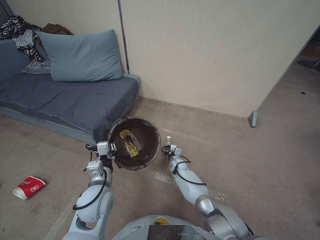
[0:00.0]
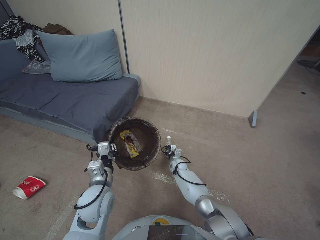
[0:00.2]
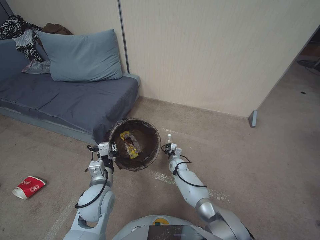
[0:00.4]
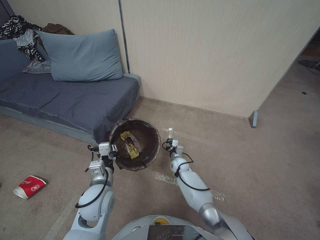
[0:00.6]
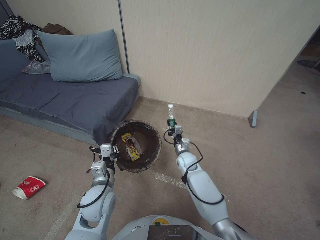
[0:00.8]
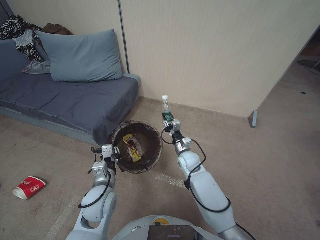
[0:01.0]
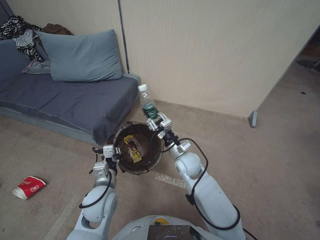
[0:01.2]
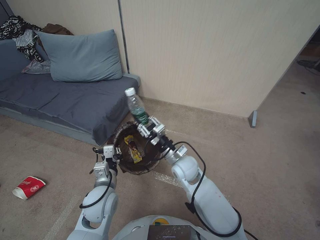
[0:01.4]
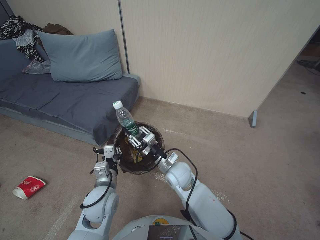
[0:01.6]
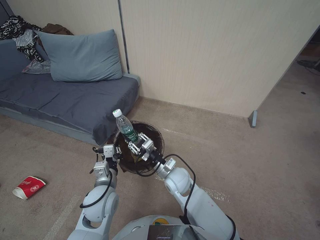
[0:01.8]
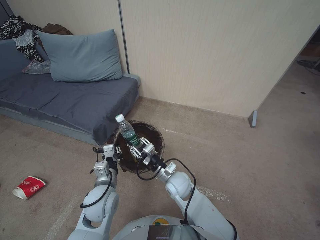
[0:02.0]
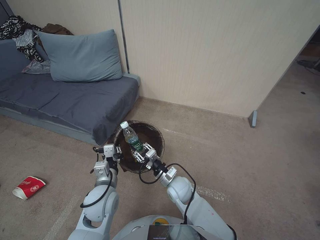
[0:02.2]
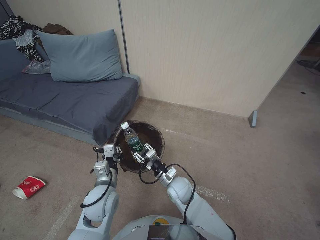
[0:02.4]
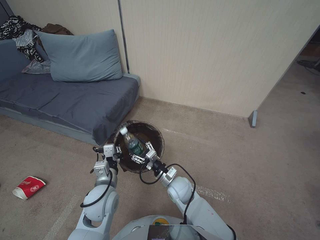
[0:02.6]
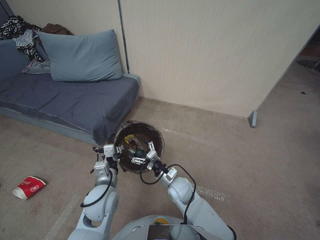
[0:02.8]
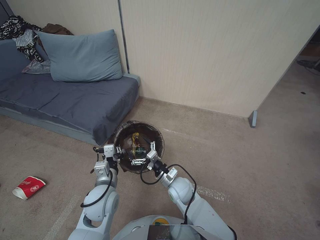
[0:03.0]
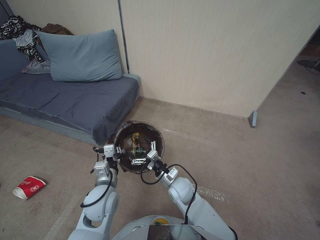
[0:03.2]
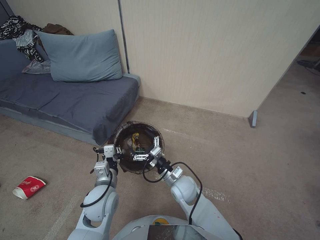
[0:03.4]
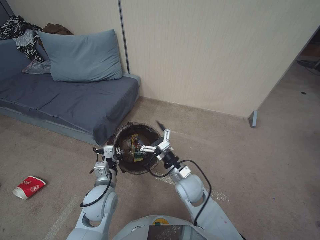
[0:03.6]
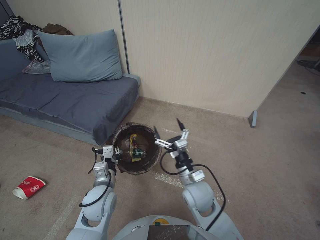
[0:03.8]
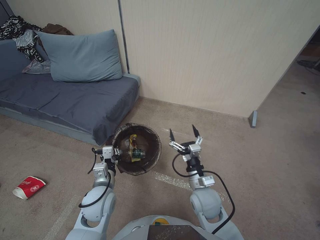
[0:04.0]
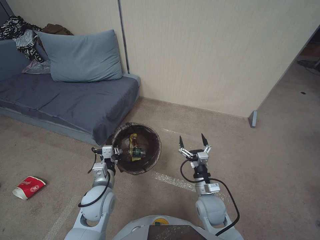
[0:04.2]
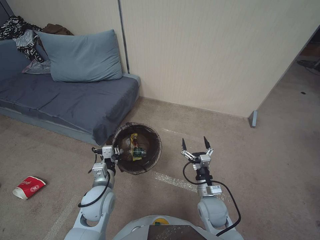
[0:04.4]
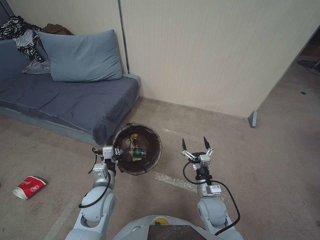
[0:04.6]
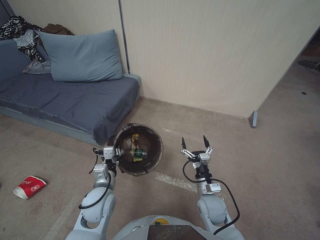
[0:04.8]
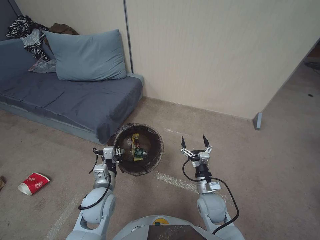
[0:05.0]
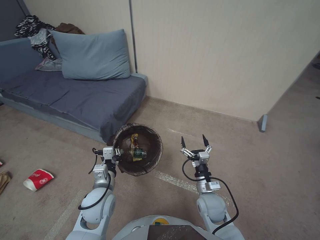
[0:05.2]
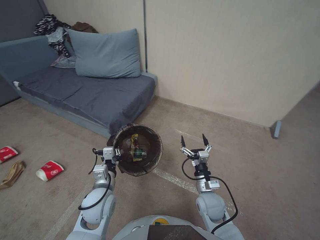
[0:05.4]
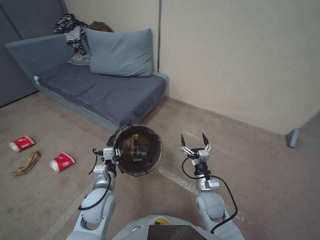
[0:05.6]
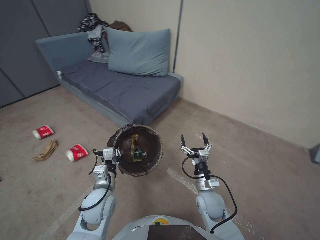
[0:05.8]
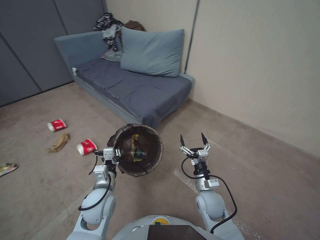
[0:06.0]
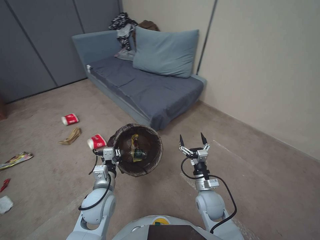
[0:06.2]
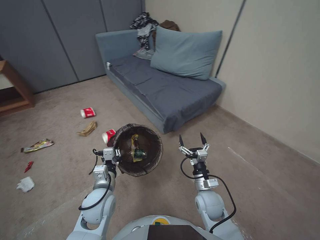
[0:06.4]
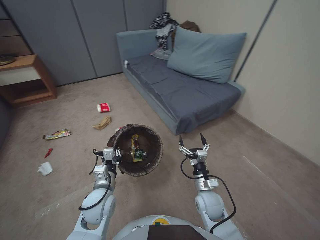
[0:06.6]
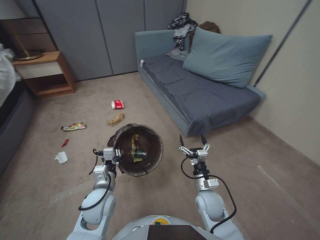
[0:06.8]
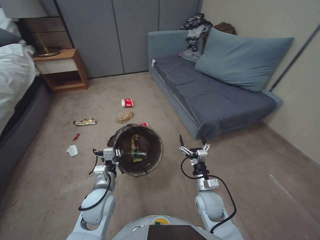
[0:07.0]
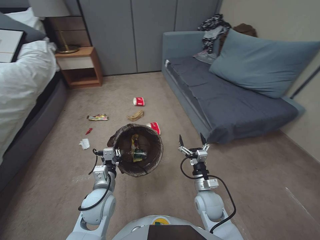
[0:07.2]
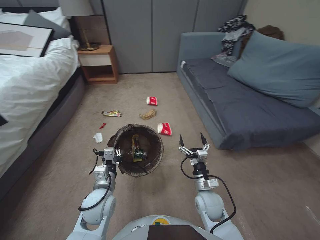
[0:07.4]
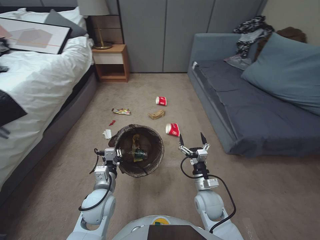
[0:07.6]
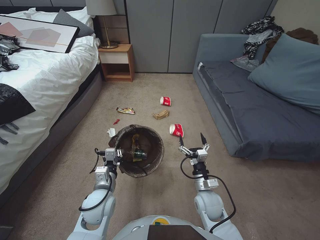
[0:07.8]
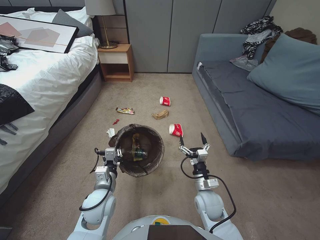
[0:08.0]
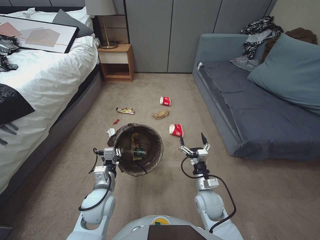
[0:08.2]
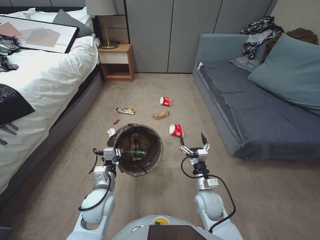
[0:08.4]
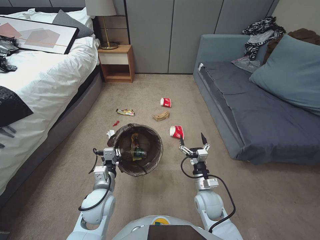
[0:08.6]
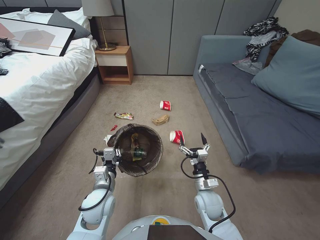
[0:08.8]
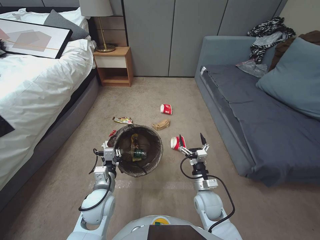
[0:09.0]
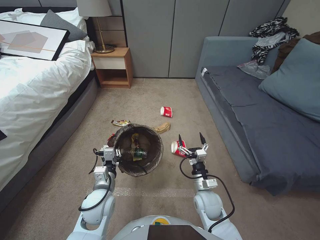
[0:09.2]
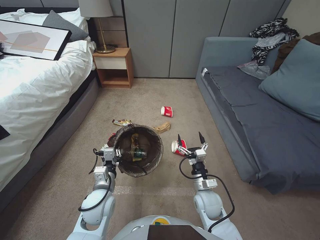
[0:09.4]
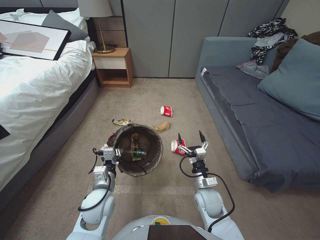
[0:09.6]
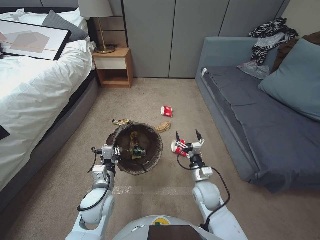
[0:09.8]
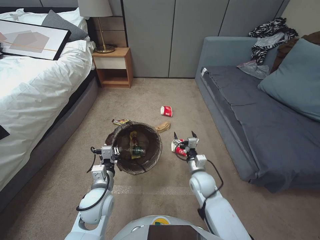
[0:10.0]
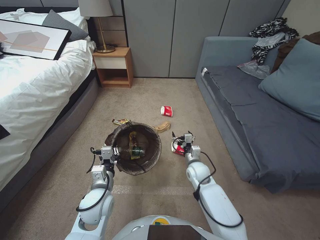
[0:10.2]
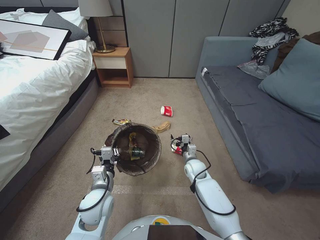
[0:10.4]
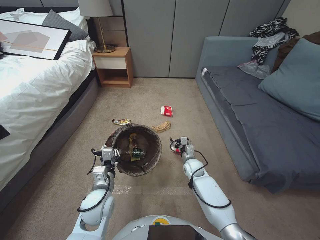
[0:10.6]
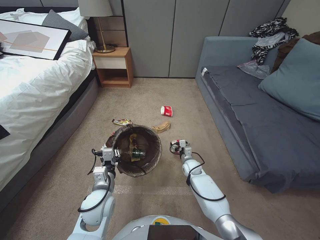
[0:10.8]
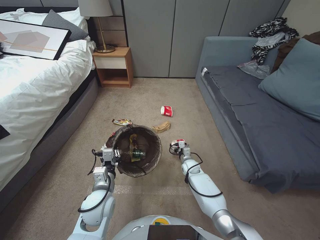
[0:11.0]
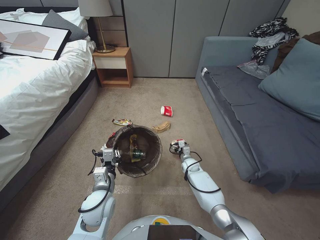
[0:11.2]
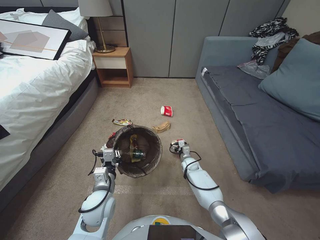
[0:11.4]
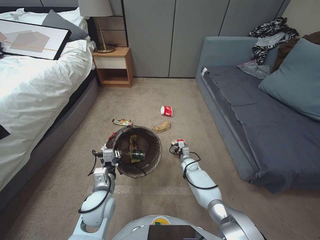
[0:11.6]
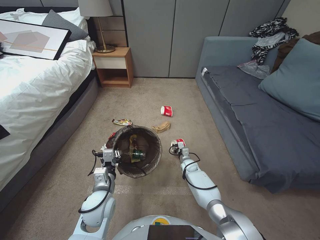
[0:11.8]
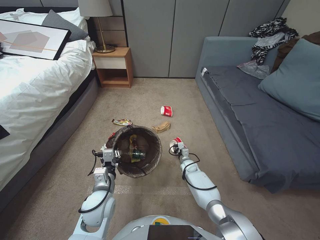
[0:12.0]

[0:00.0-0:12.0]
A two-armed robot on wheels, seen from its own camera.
Task of the whole recording: Pick up the trash bin, then pick up the garbage from the floor and place it into the trash bin.
0:00.0 to 0:01.6: The right gripper heads upward and backward, covering approximately 25 cm.
0:01.6 to 0:03.0: The right gripper moves downward, some 10 cm, and opens.
0:03.0 to 0:04.4: The right gripper goes about 15 cm to the right and backward.
0:09.0 to 0:10.4: The right gripper moves forward, about 5 cm.
0:10.4 to 0:12.0: The right gripper shifts about 20 cm downward and forward, and closes.

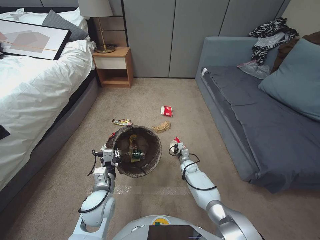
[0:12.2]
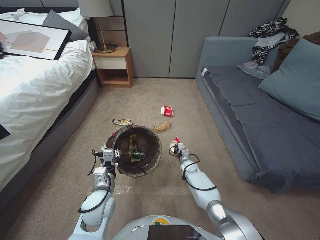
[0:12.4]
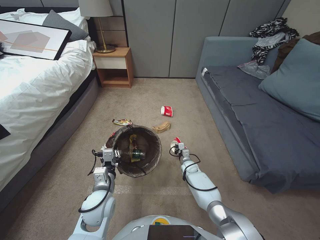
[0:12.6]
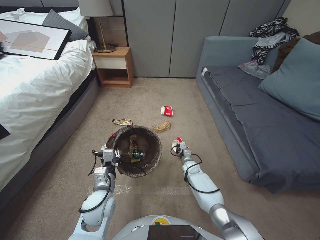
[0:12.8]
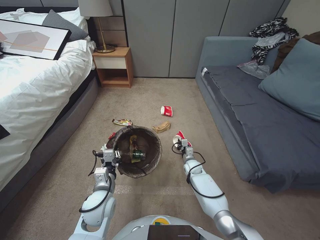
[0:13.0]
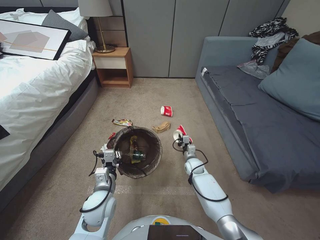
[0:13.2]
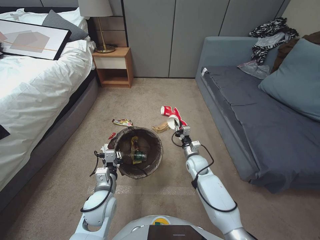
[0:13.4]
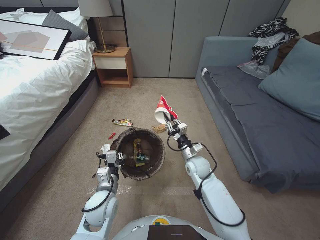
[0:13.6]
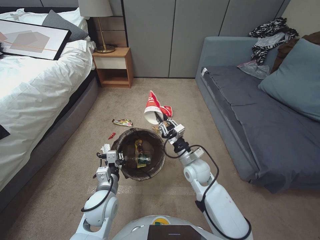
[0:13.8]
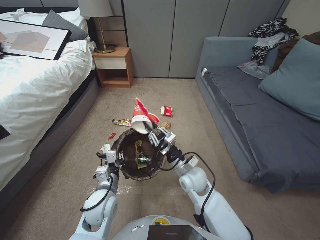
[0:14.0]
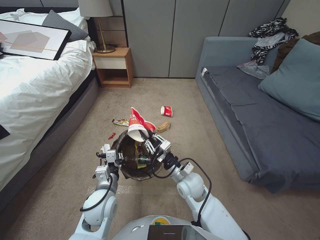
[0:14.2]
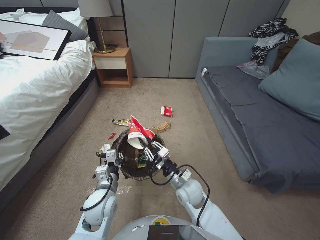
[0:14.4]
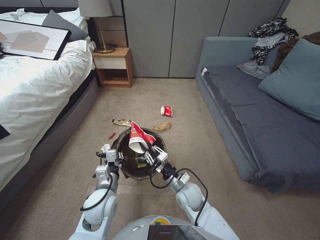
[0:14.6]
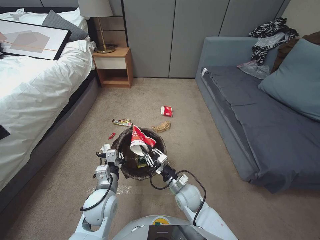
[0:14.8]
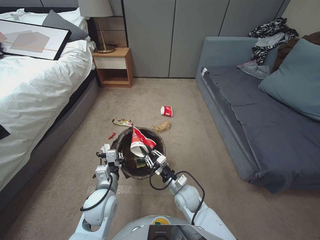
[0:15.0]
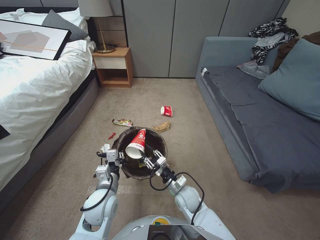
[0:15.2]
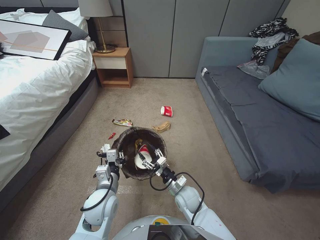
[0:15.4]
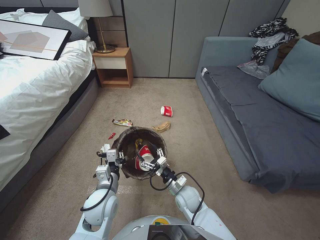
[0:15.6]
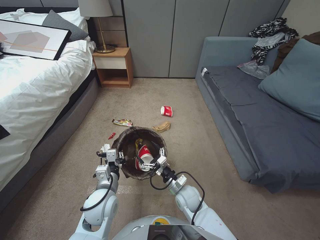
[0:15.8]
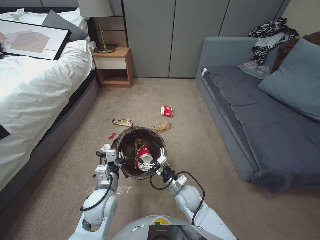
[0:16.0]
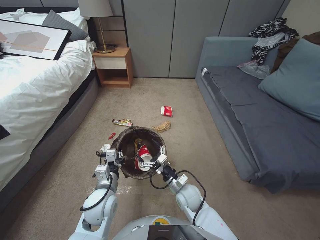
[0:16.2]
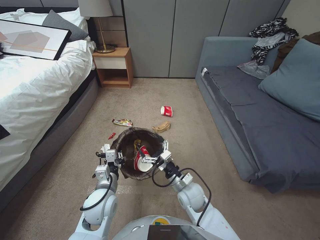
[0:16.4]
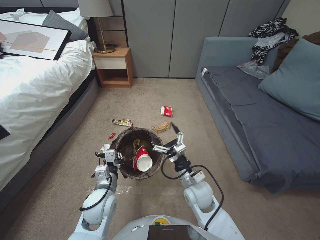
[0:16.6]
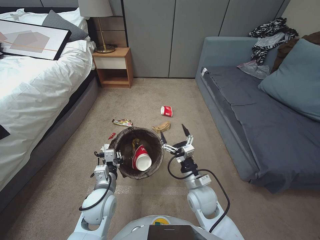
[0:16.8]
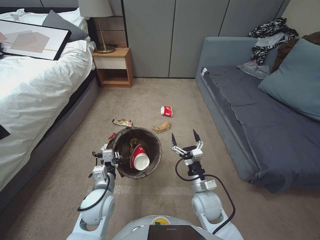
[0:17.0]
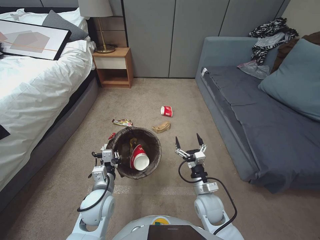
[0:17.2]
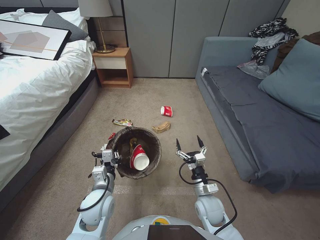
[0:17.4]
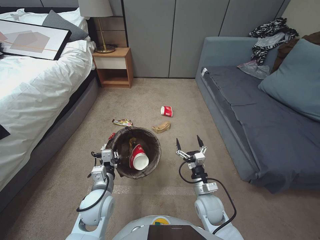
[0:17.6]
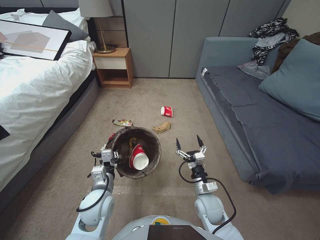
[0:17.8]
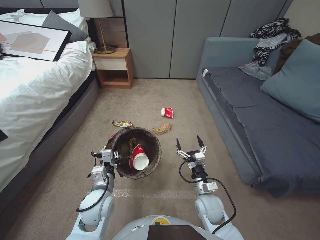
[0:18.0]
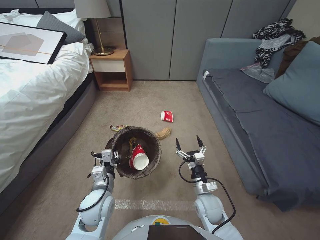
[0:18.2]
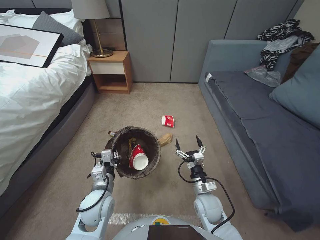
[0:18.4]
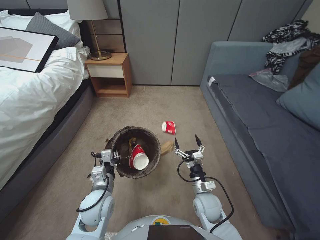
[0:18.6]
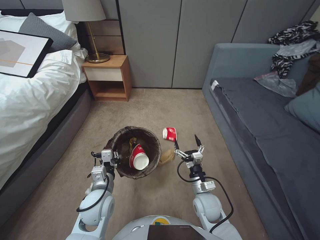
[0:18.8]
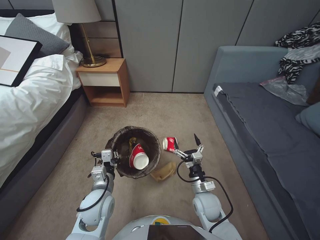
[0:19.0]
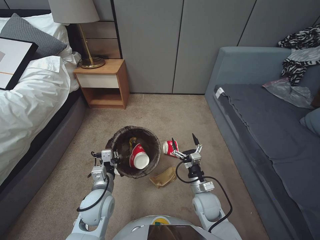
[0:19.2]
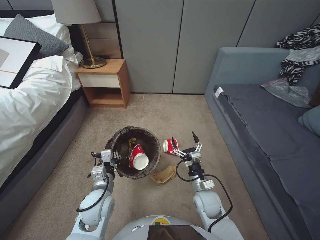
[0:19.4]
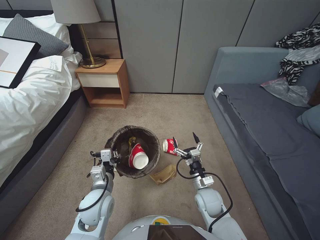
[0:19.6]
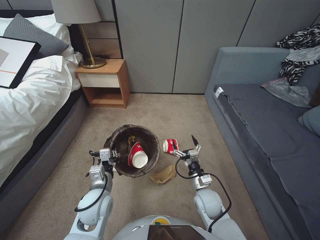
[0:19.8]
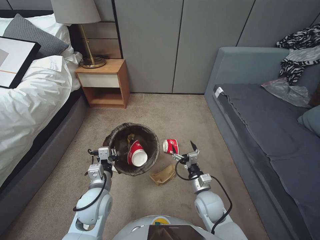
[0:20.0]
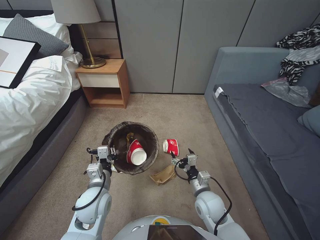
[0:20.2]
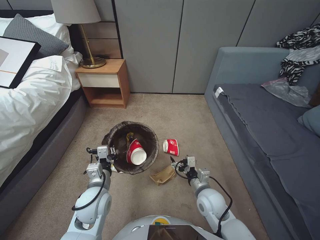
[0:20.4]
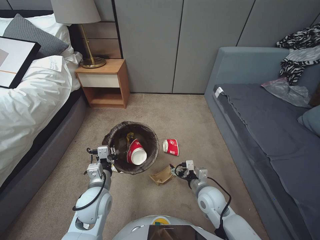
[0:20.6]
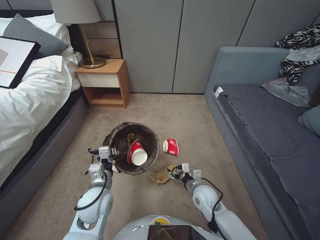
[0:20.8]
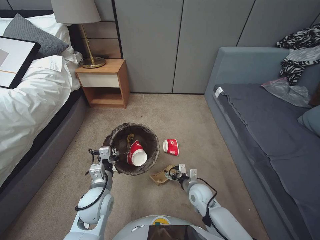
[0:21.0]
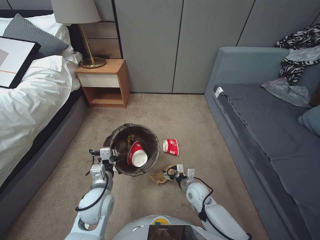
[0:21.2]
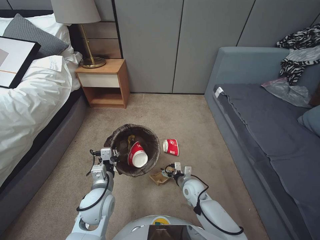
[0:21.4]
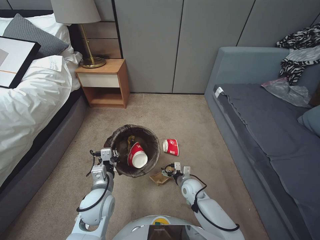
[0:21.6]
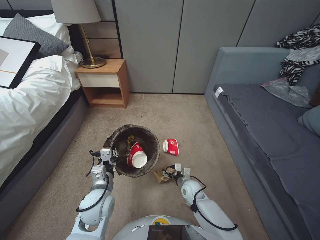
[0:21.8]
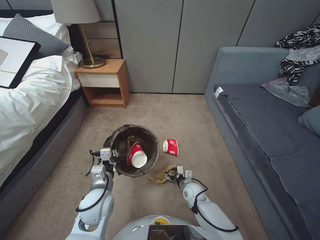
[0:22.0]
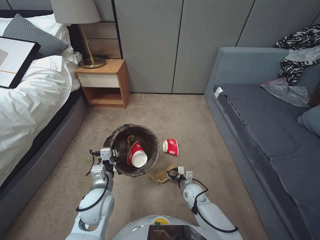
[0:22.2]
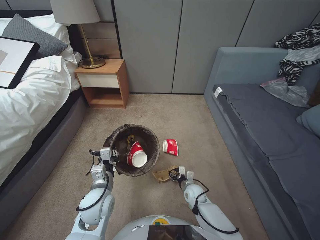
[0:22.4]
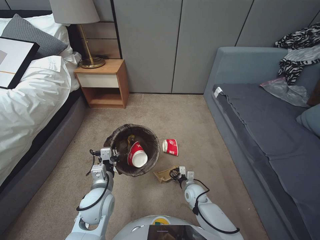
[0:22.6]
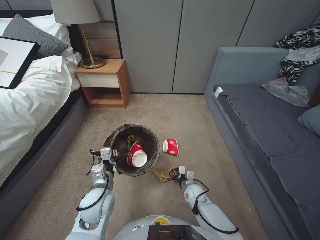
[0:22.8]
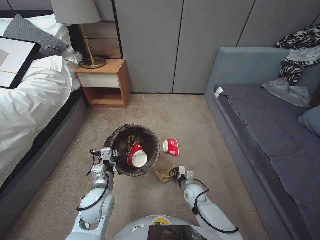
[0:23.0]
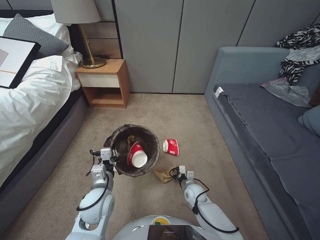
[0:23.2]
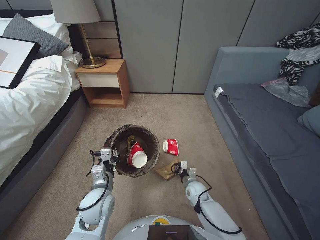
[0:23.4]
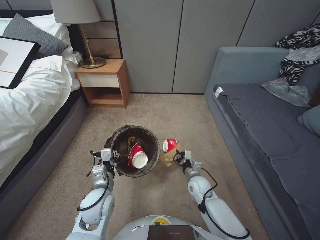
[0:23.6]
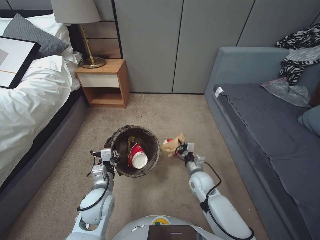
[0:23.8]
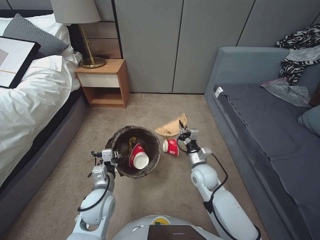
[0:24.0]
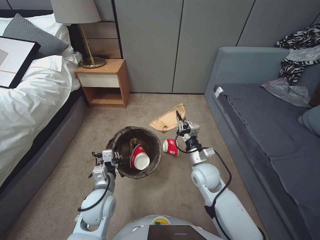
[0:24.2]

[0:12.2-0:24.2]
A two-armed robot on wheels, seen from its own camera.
Task of the whole recording: Pick up the trash bin, then pick up the garbage from the floor and place it into the trash bin.
0:12.2 to 0:13.8: The right gripper moves upward, about 20 cm.
0:13.8 to 0:15.2: The right gripper goes approximately 15 cm backward, to the left and downward.
0:15.2 to 0:16.6: The right gripper goes some 5 cm upward, and opens.
0:16.6 to 0:18.2: The right gripper is displaced to the right by roughly 5 cm.
0:19.8 to 0:21.2: The right gripper heads downward, covering some 5 cm.
0:21.2 to 0:22.6: The right gripper heads downward, covering approximately 5 cm, and closes its fingers.
0:22.6 to 0:24.2: The right gripper shifts approximately 20 cm upward, and closes.
